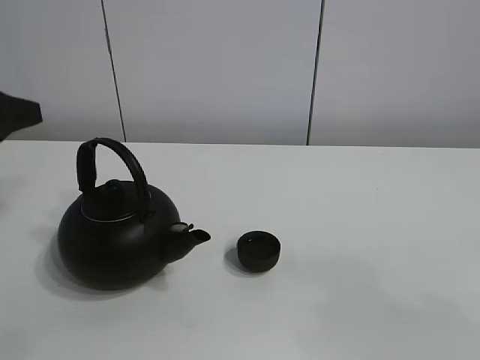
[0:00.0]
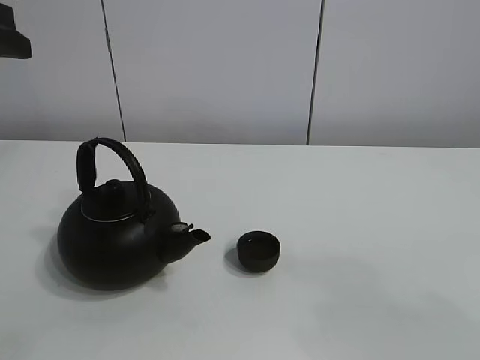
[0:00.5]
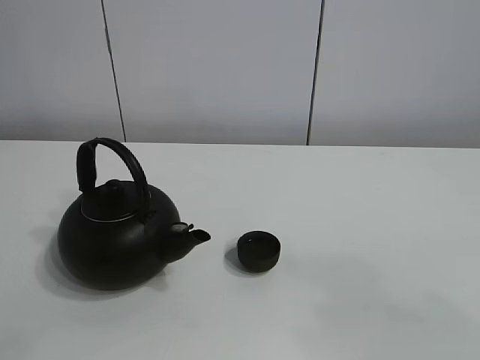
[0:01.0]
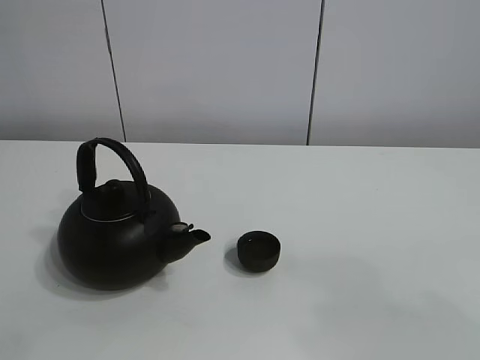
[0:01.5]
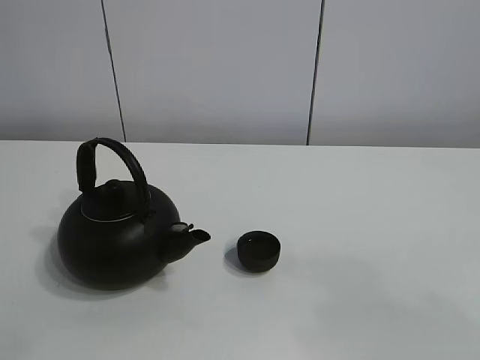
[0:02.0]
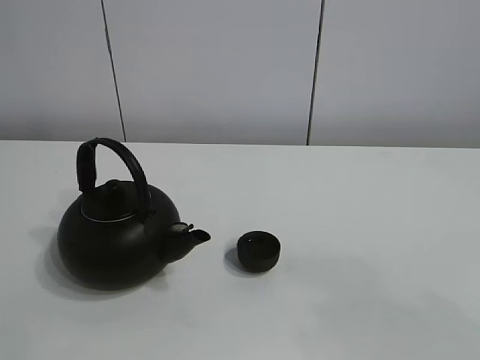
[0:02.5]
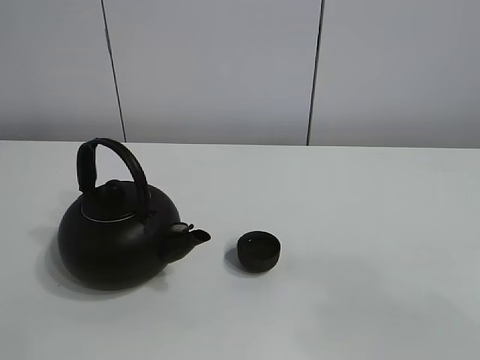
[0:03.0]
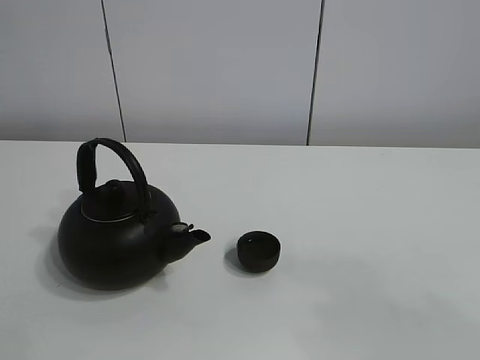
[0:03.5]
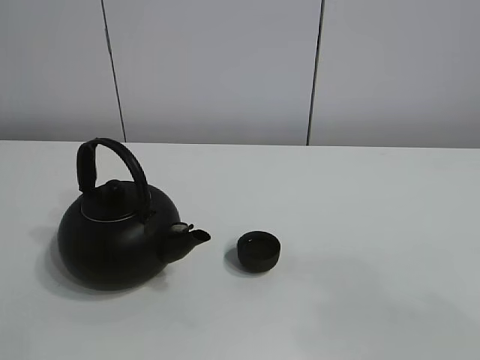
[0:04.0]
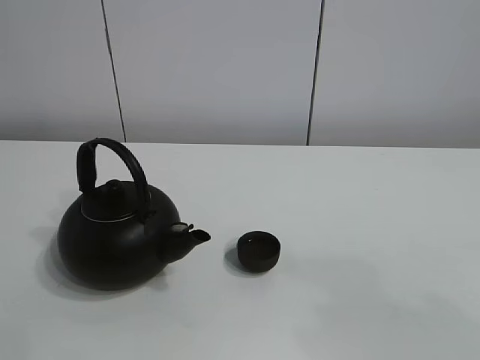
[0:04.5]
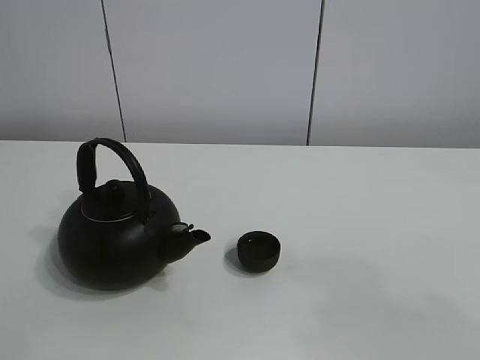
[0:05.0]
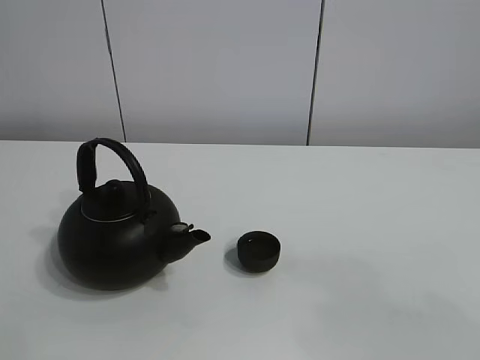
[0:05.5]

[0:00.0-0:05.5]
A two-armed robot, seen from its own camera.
Task of the whole recording: pour tea into the teacup.
0:00.0 to 0:02.0: The left gripper moves upward and to the left, roughly 10 cm.
